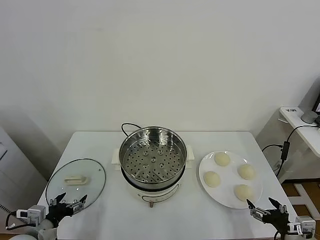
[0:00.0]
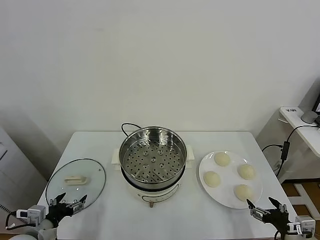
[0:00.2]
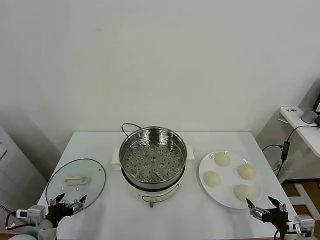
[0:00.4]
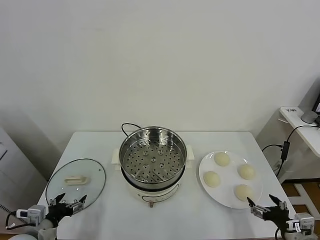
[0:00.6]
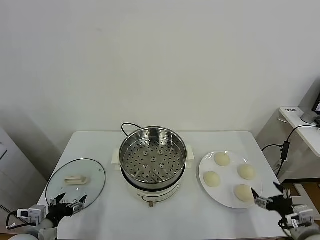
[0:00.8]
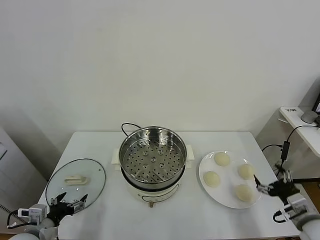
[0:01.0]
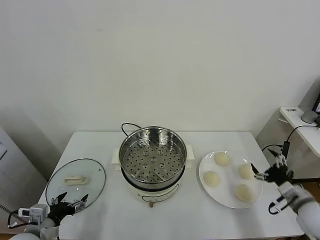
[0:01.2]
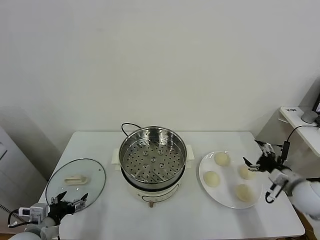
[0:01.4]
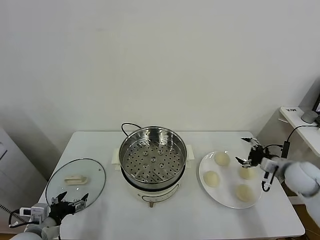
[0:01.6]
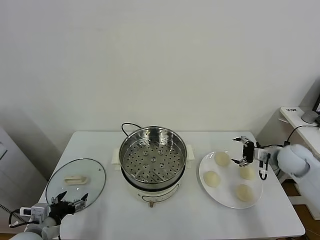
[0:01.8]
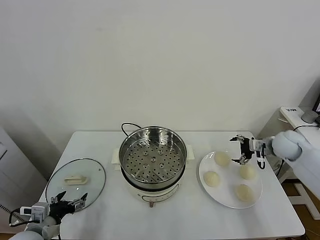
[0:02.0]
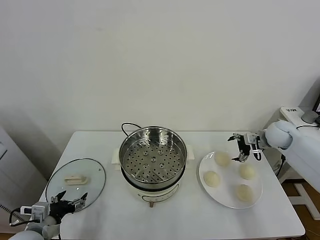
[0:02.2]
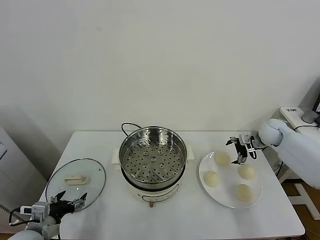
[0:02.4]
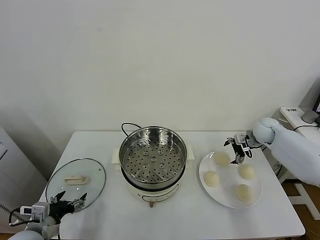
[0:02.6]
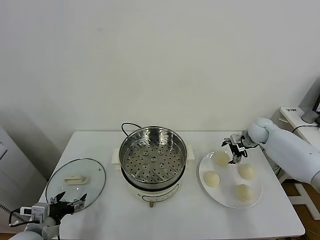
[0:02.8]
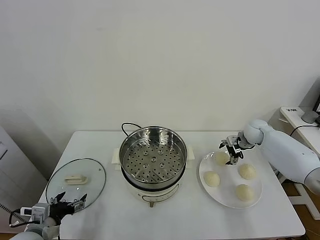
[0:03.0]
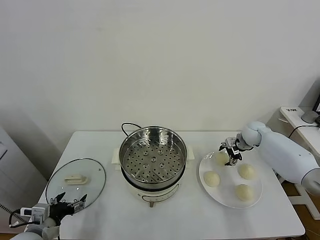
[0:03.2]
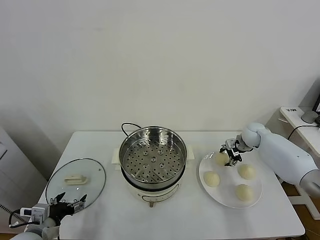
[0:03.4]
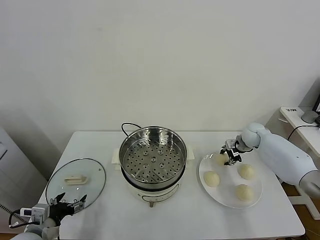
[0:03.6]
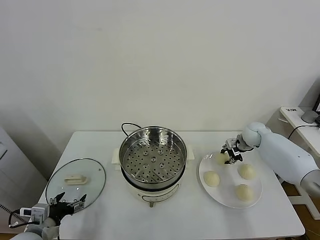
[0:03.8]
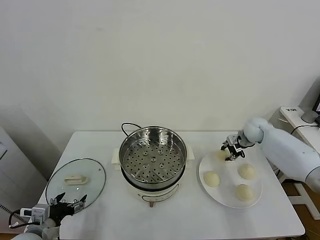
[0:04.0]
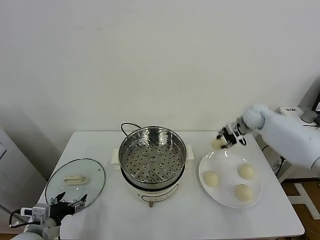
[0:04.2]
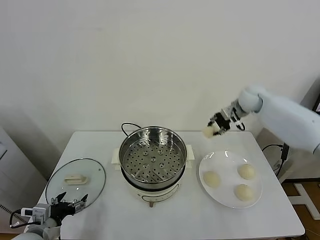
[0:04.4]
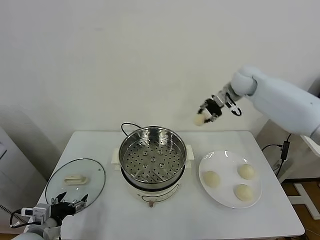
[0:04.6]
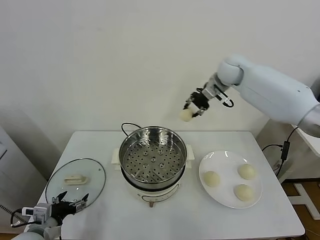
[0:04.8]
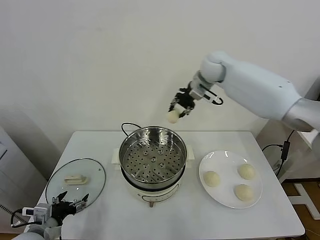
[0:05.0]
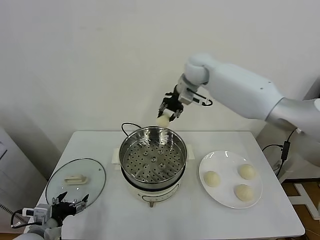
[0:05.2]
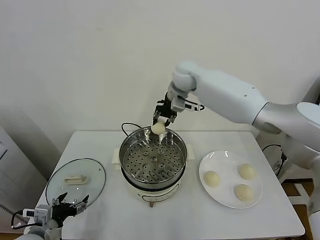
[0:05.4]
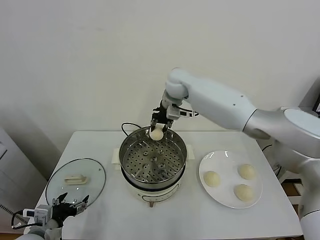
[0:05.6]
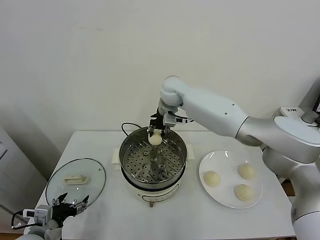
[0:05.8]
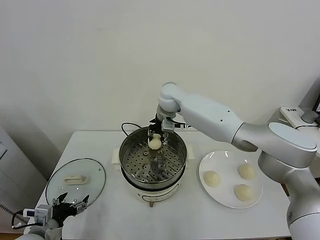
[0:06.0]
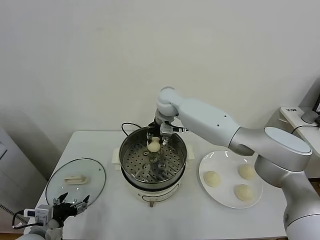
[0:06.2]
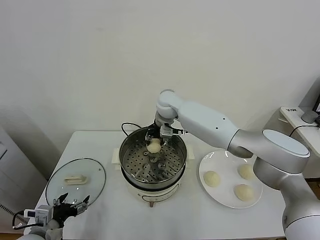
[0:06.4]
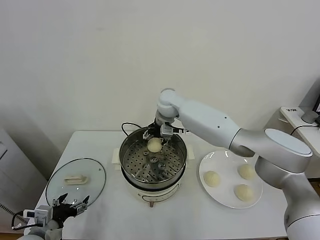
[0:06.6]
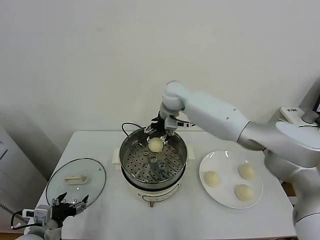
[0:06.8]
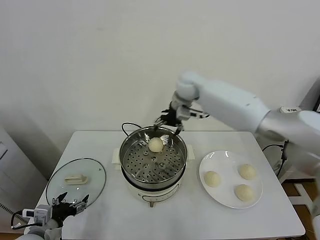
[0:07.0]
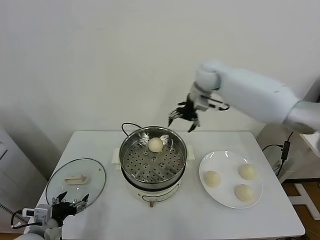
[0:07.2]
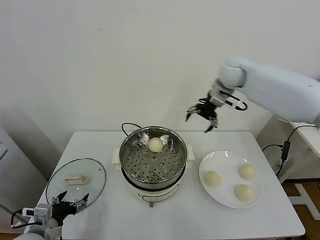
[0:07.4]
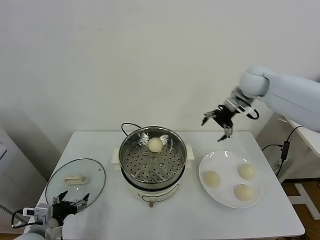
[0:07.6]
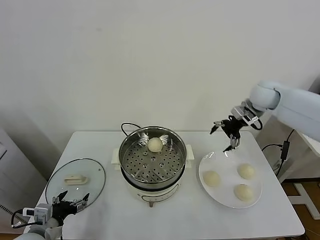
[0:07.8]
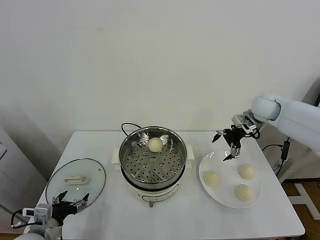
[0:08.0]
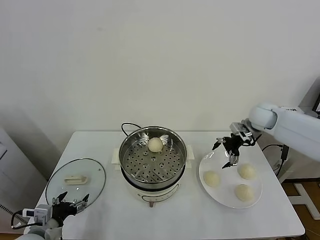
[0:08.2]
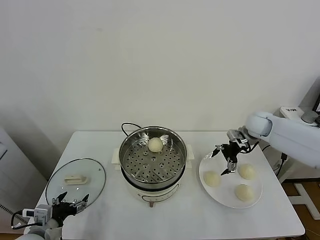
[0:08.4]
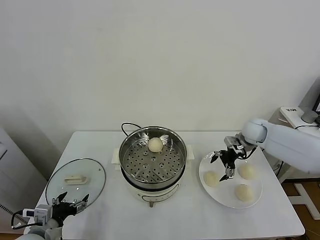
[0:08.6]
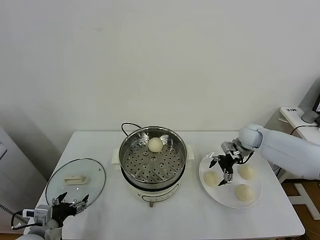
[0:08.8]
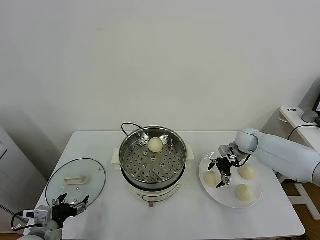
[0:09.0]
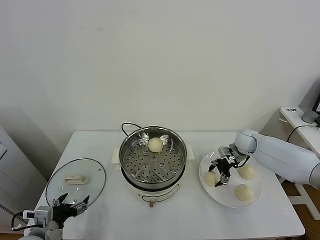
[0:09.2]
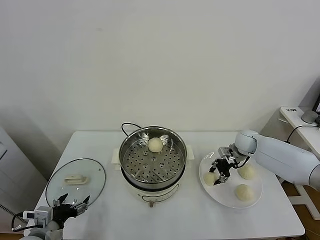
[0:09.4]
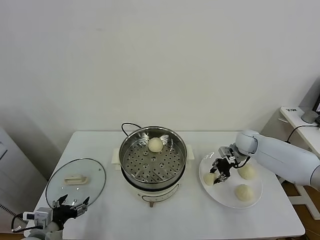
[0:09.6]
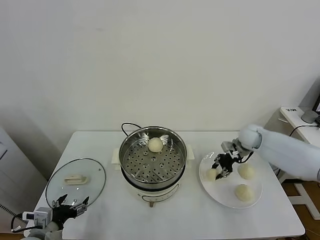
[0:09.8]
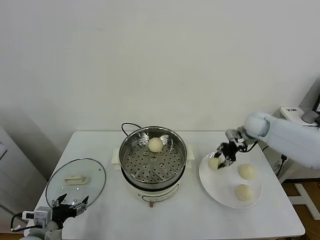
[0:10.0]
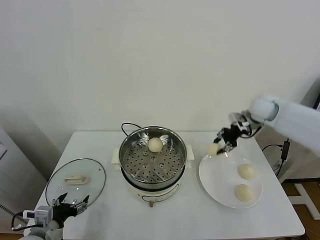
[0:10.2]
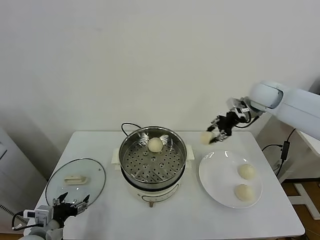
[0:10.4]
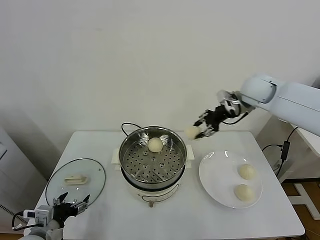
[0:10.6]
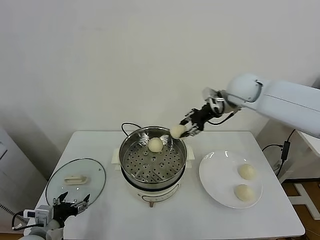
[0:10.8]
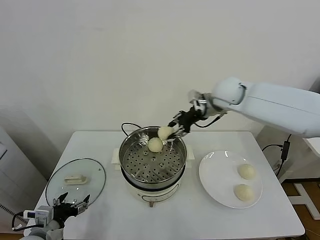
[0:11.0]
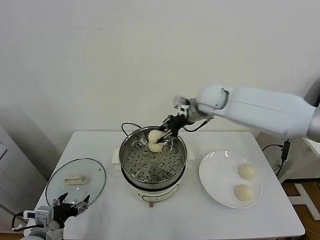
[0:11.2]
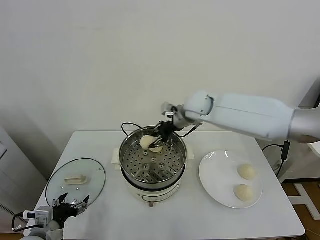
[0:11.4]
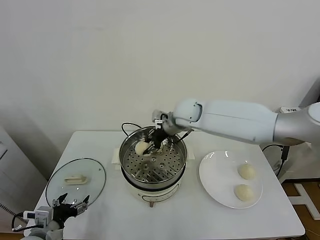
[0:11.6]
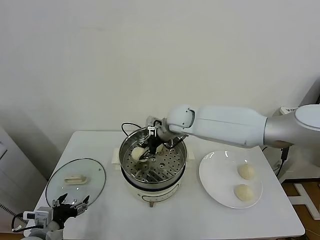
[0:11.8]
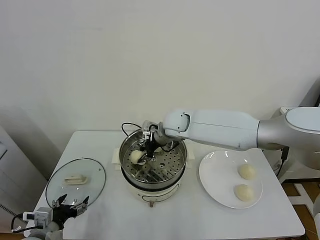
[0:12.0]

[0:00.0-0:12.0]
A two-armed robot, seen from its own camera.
Task of the whole recording: take steamed baozi put them in steamer.
Step, 0:00.0 to 0:03.4: Grasp the baozi in the plate with right gripper.
Step, 0:03.6 to 0:06.6: Place the baozi on the steamer with right gripper.
Step, 0:06.8 to 0:09.4: Grasp the baozi in the plate with right gripper.
0:01.6 to 0:03.0: The right gripper heads forward, covering approximately 15 cm.
0:03.0 to 0:04.4: The right gripper goes some 20 cm upward and to the left, and closes.
0:04.4 to 0:06.0: The right gripper moves to the left, about 30 cm.
0:06.0 to 0:07.6: The right gripper shifts some 30 cm to the right, and opens its fingers.
0:07.6 to 0:09.0: The right gripper shifts about 25 cm downward.
0:09.0 to 0:10.4: The right gripper shifts approximately 20 cm upward, and closes its fingers.
0:10.4 to 0:12.0: The right gripper travels to the left by about 25 cm.

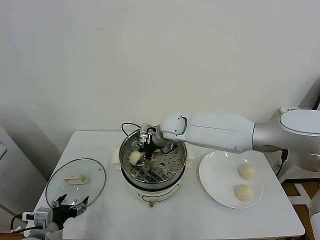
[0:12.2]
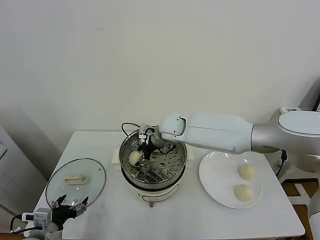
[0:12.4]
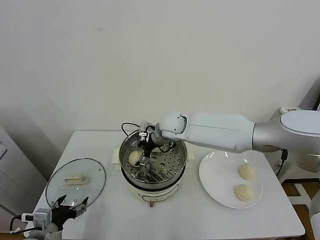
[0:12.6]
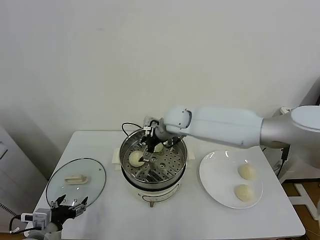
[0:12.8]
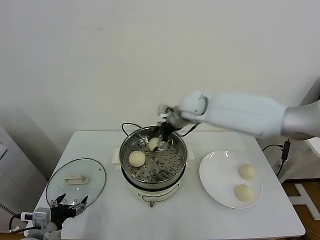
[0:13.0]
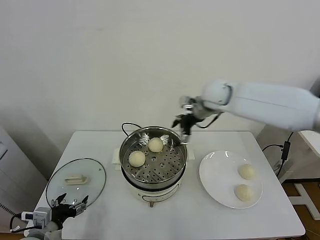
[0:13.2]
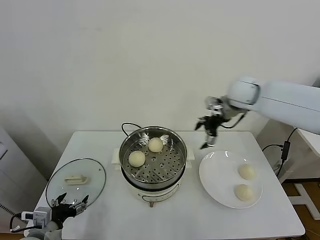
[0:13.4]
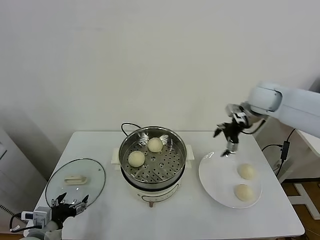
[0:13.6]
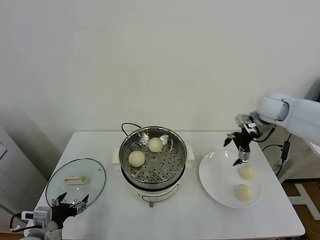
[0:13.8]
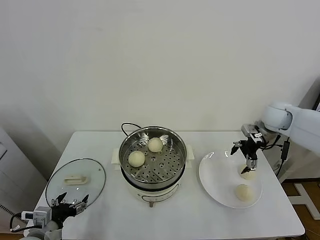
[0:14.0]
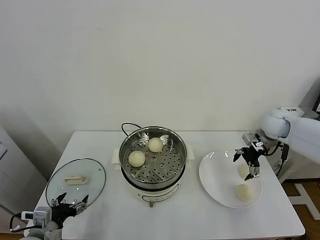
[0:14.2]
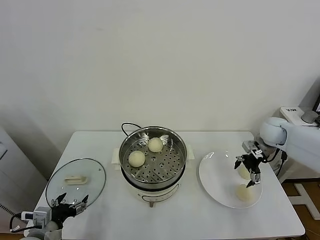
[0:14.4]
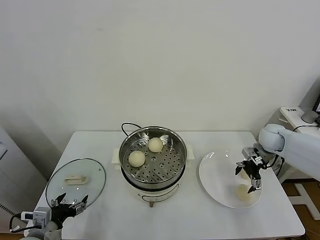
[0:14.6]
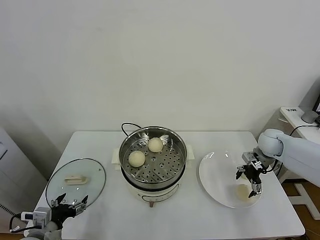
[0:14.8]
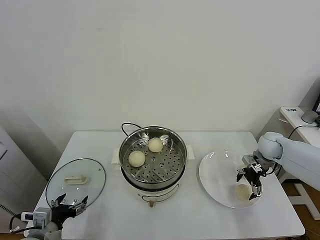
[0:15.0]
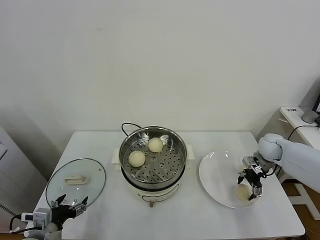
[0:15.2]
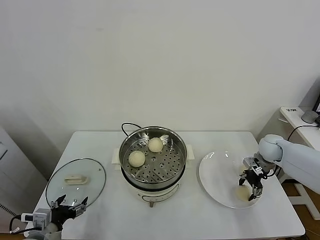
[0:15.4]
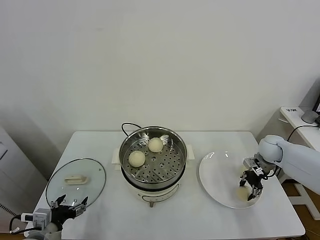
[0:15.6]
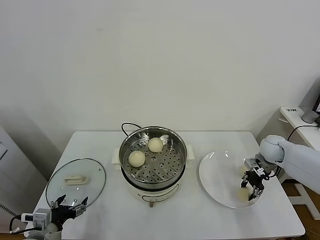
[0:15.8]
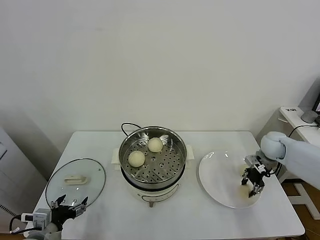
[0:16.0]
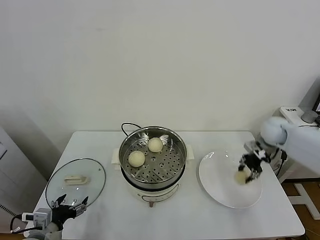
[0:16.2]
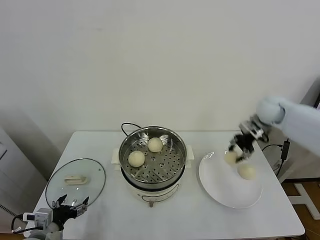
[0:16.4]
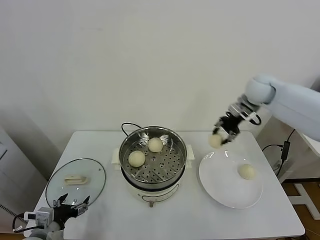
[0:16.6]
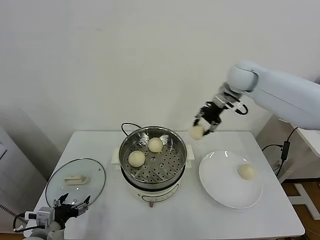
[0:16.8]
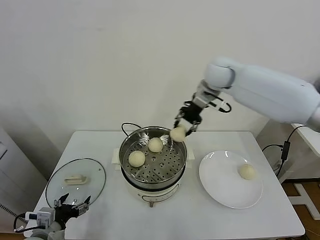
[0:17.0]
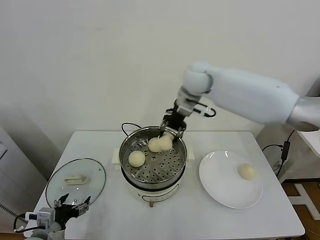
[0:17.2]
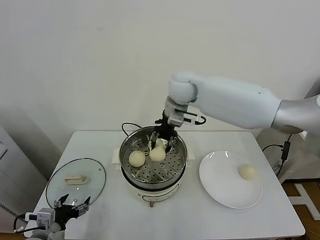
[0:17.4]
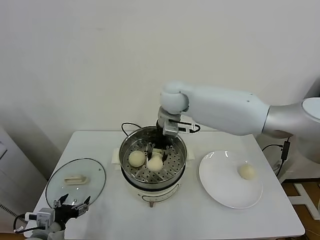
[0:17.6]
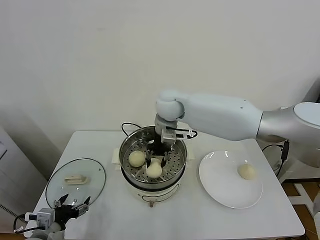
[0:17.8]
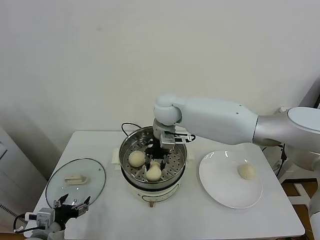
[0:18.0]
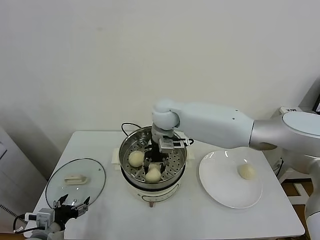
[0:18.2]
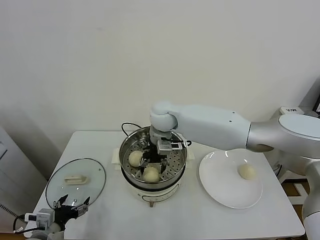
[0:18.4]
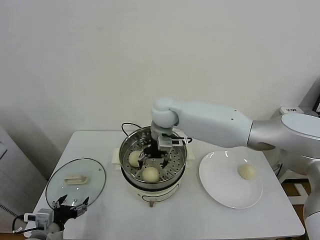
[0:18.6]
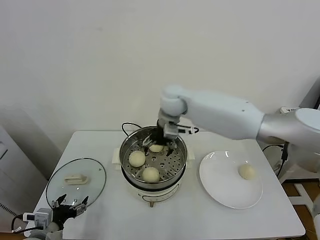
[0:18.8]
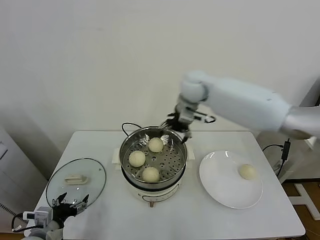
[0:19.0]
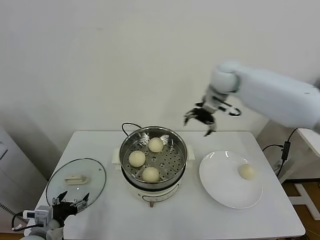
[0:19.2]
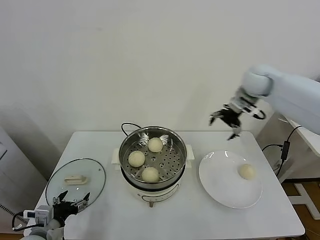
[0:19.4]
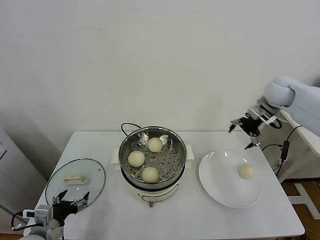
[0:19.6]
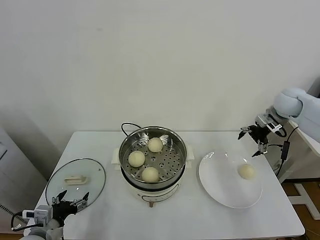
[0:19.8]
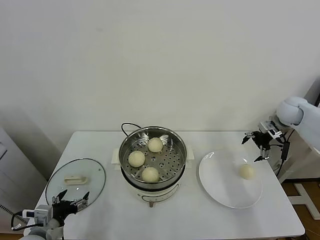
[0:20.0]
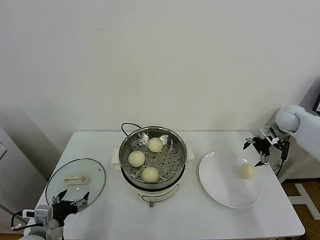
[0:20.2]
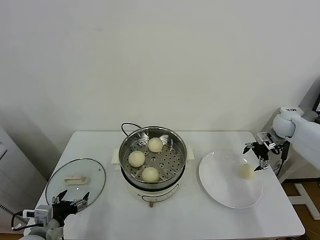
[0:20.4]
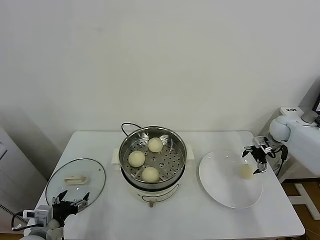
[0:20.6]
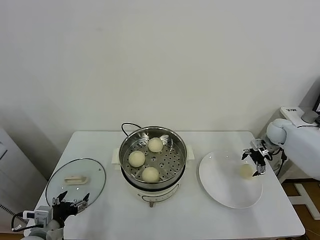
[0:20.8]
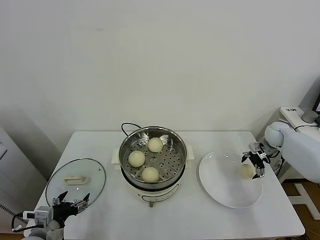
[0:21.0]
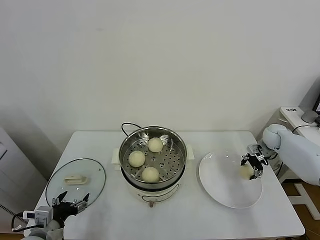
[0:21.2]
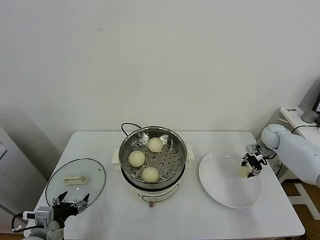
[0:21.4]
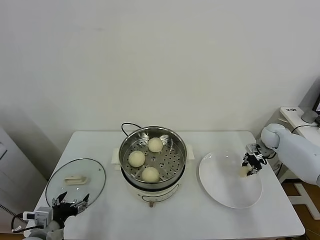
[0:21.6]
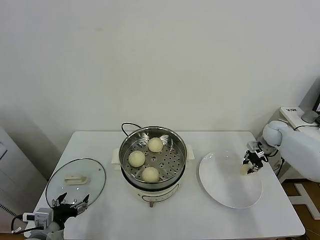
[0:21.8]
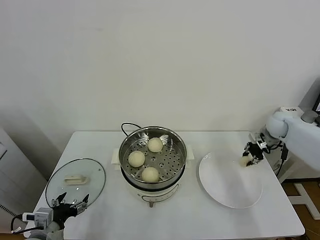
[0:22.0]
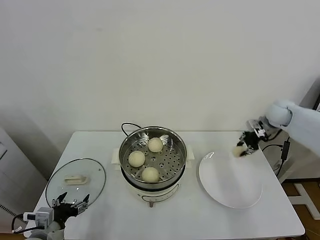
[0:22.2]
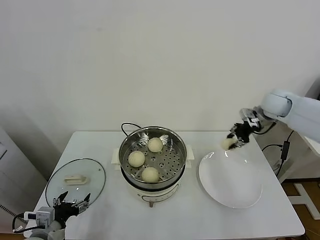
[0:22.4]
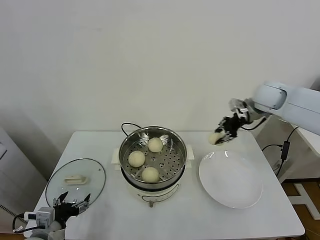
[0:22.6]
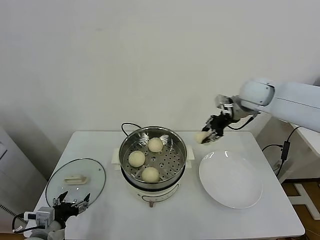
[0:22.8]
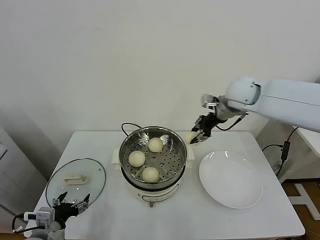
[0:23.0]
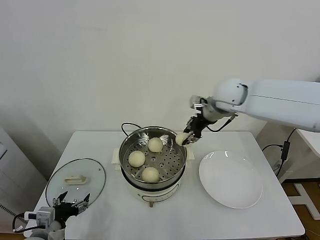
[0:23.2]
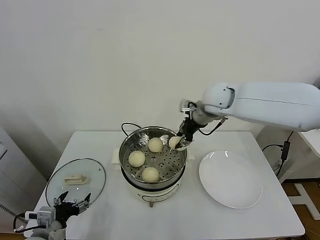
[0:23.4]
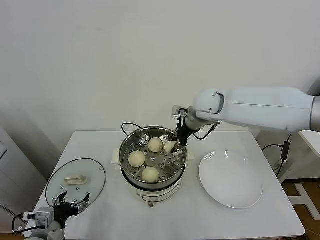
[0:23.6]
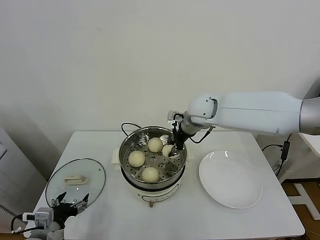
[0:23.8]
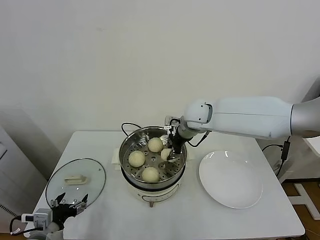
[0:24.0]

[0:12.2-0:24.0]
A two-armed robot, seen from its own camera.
Task of the whole recording: take steamed baozi put them in steamer.
Step, 0:12.8 to 0:15.4: Grasp the baozi in the plate with right gripper.
Step, 0:15.6 to 0:18.6: Place the baozi on the steamer with right gripper.
Step, 0:18.8 to 0:21.6: Grasp the baozi in the plate with right gripper.
0:12.2 to 0:13.6: The right gripper shifts about 30 cm to the right, and opens.
0:13.6 to 0:15.2: The right gripper is displaced downward and to the right by roughly 20 cm.
0:15.2 to 0:16.6: The right gripper goes about 25 cm upward and to the left, and closes.
0:16.6 to 0:18.2: The right gripper goes roughly 30 cm to the left.
0:18.2 to 0:19.6: The right gripper heads to the right, covering approximately 40 cm, and opens its fingers.
0:19.6 to 0:21.0: The right gripper shifts about 20 cm downward.
0:21.0 to 0:22.6: The right gripper heads upward and to the left, covering some 25 cm, and closes its fingers.
0:22.6 to 0:24.0: The right gripper heads to the left, covering some 20 cm.
